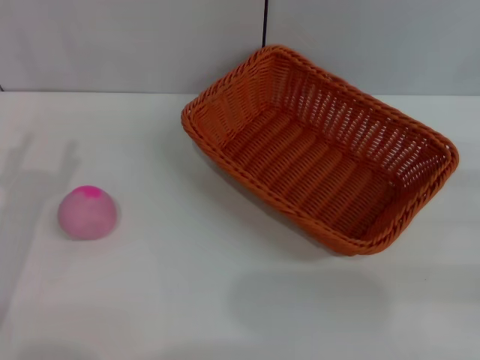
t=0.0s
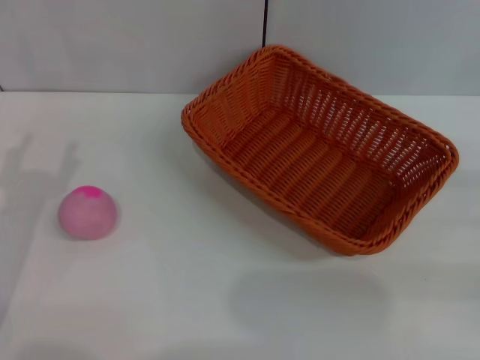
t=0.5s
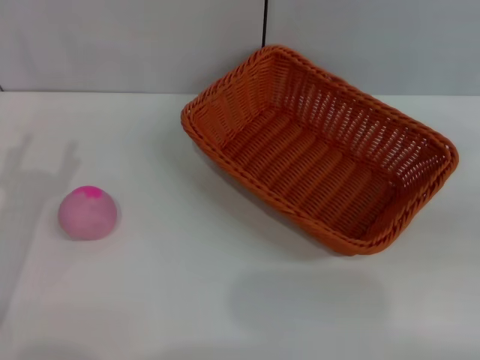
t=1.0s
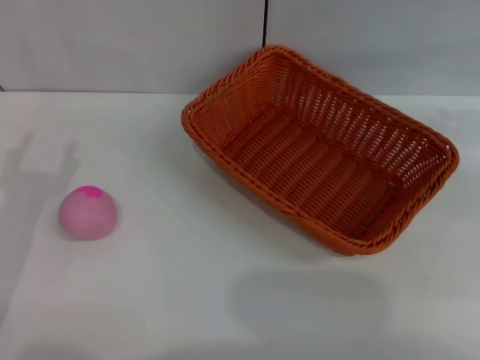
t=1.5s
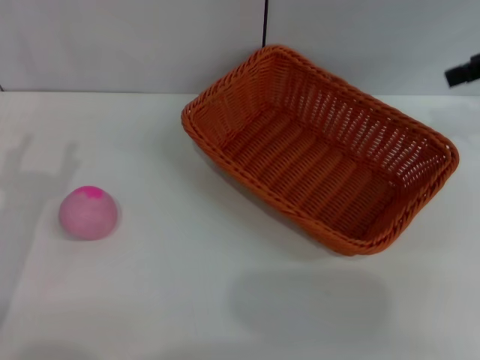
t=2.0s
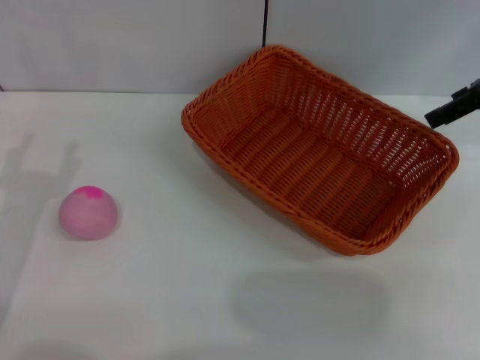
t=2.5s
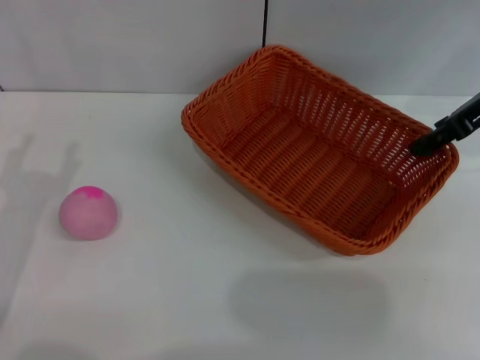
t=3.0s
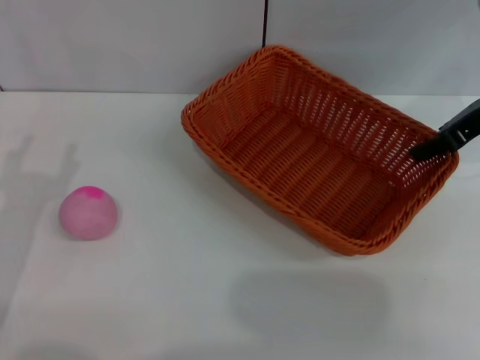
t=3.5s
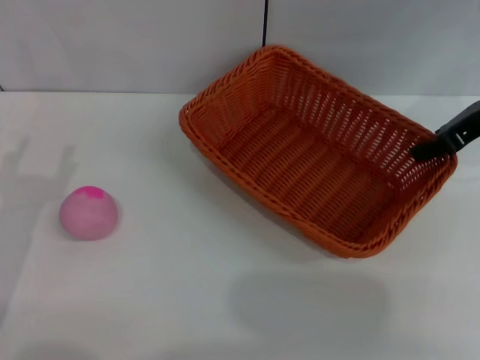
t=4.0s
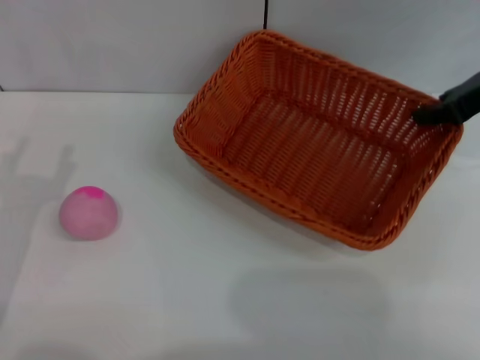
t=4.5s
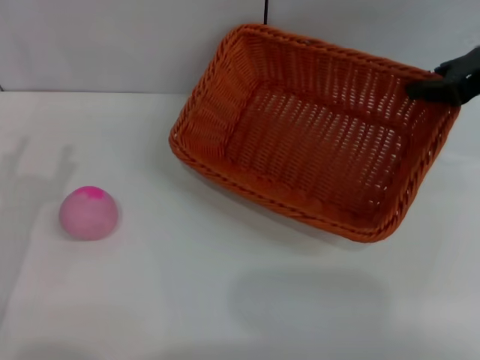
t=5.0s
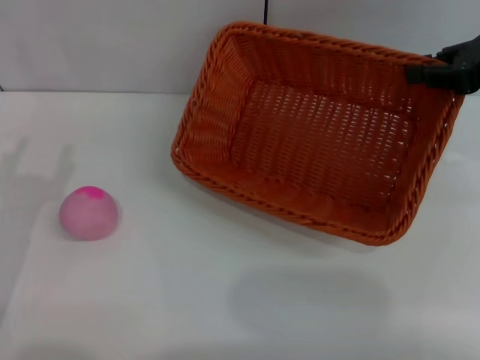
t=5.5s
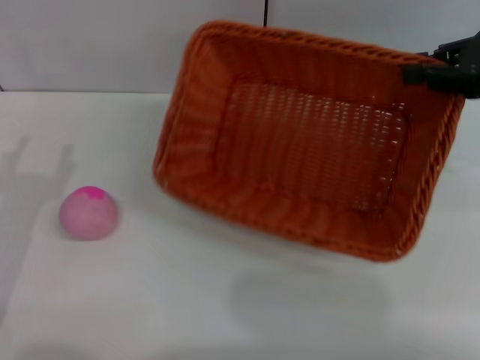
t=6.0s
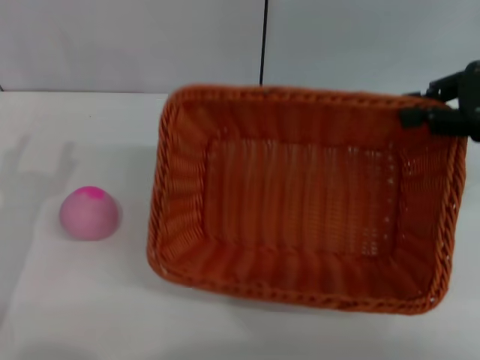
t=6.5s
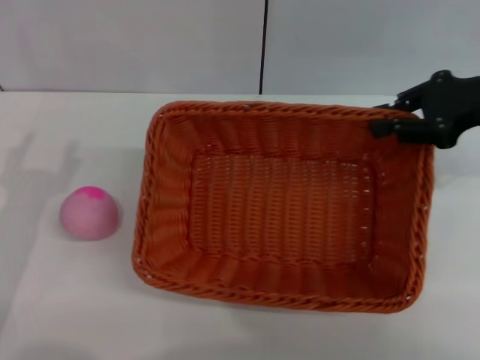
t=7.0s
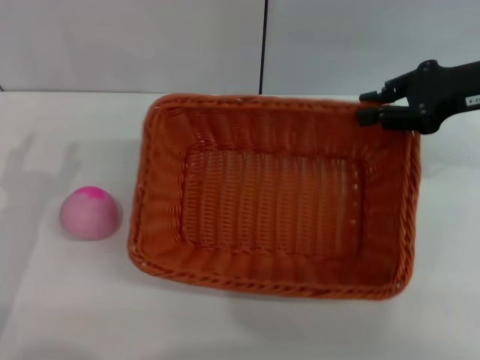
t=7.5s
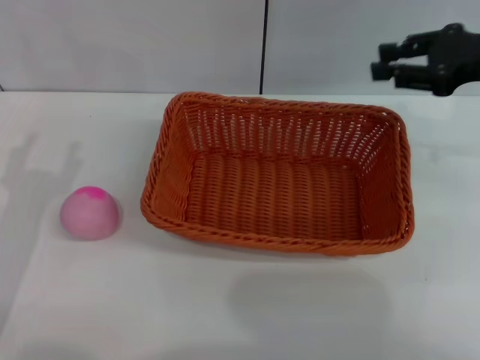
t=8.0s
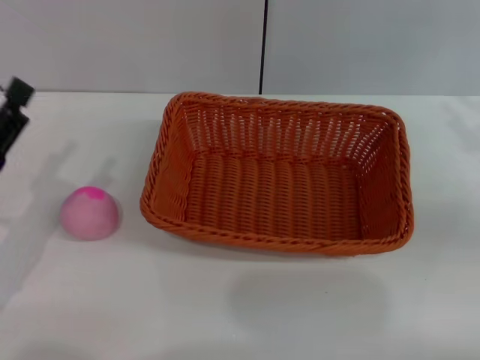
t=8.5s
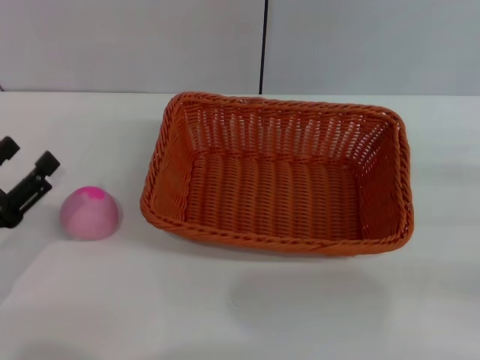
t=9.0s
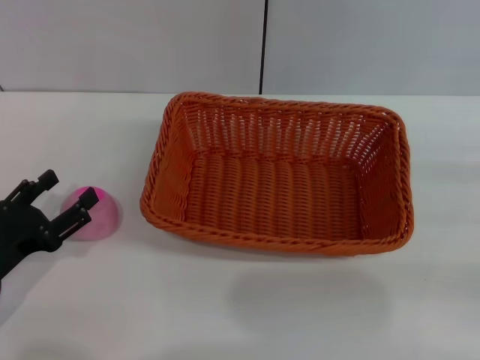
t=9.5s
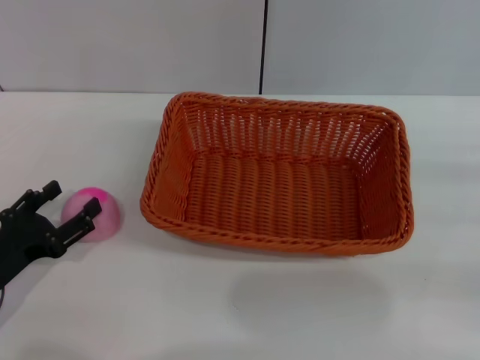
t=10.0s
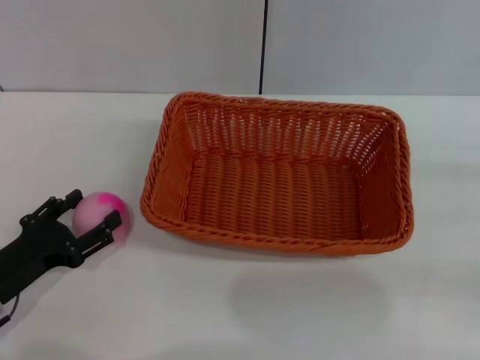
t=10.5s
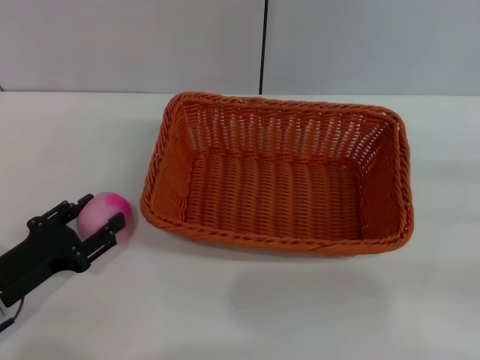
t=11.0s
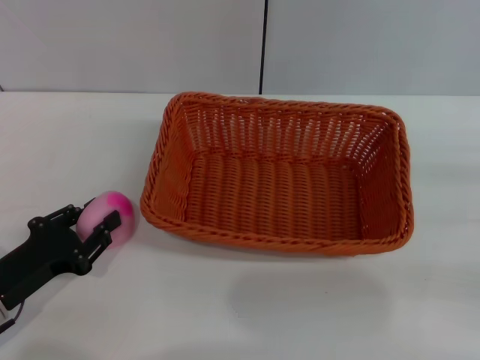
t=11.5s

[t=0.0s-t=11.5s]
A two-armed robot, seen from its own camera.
Step, t=0.0s to t=4.5s: Pick up the light basket with the right gripper.
Step, t=5.0s to t=8.0s: Place the light basket in the center of view with the right gripper.
t=2.0s to t=4.0s: The right gripper goes roughly 10 cm downward, and closes its fingers.
t=4.0s to t=6.0s: The right gripper moves approximately 5 cm.
t=6.0s to t=7.5s: The right gripper ends up approximately 5 cm from where it was.
t=7.5s to t=9.5s: The right gripper heads backward, to the right and downward, covering about 20 cm. Meanwhile the left gripper is displaced downward by approximately 5 cm.
t=9.5s to t=11.5s: The left gripper closes.

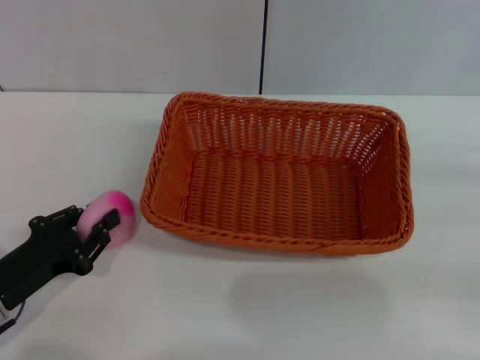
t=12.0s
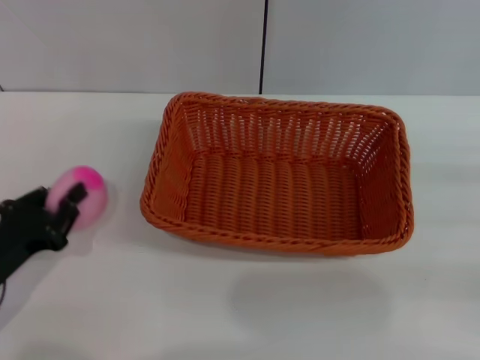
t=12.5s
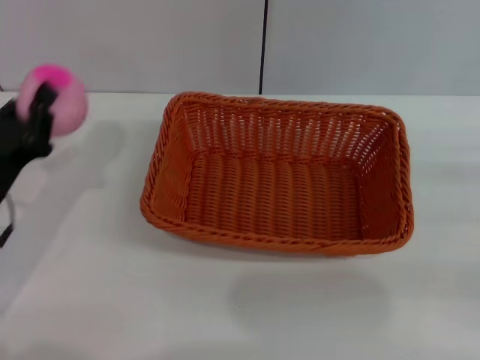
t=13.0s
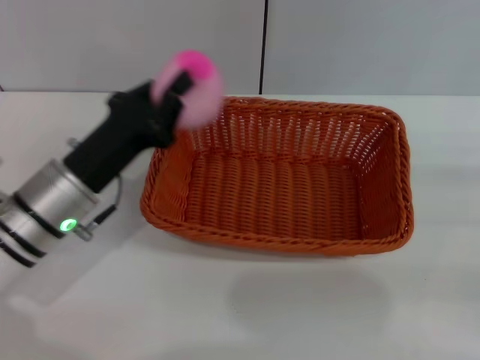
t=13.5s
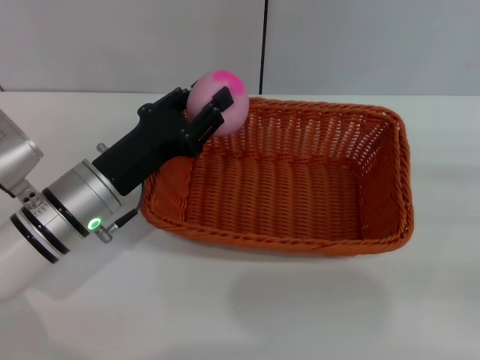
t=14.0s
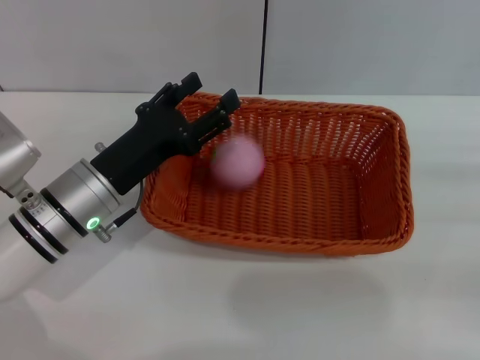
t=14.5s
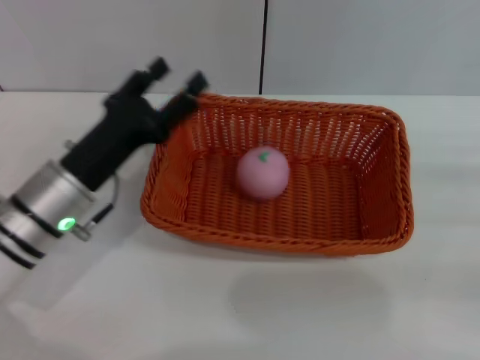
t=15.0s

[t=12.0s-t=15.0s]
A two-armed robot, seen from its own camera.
Step, t=13.5s to t=14.5s: Place the peach into the basket with the left gripper.
t=12.0s to t=13.5s: The left gripper heads to the right, forward and upward, covering some 15 cm.
t=13.5s to t=15.0s: The left gripper opens up.

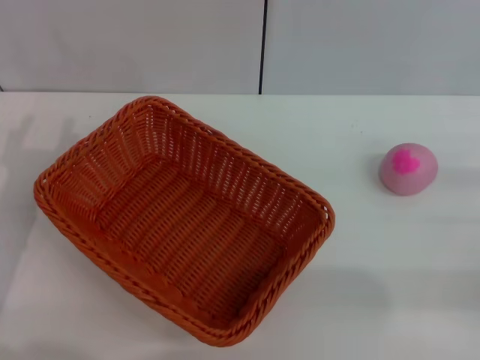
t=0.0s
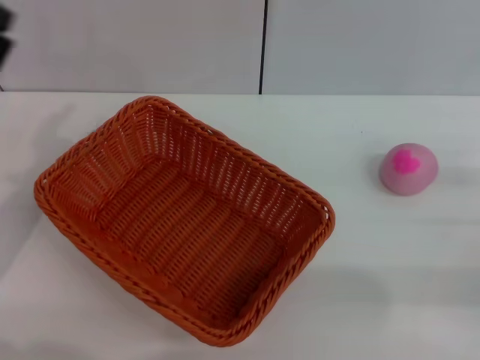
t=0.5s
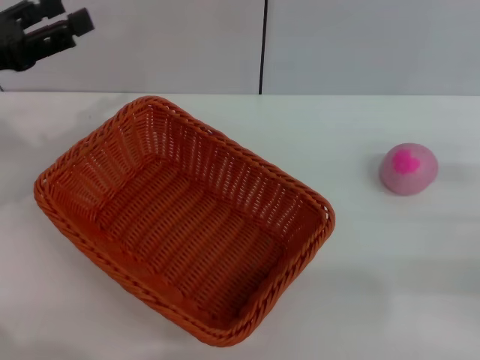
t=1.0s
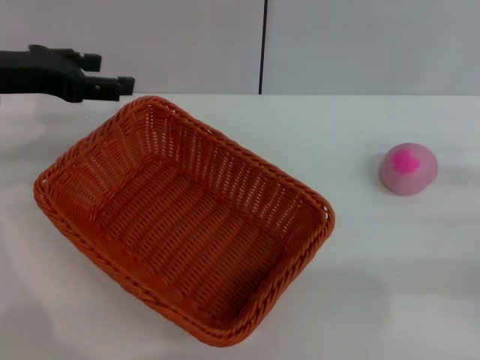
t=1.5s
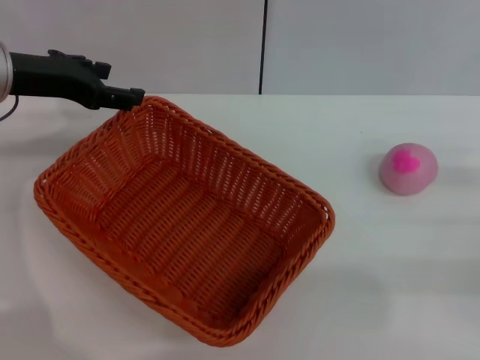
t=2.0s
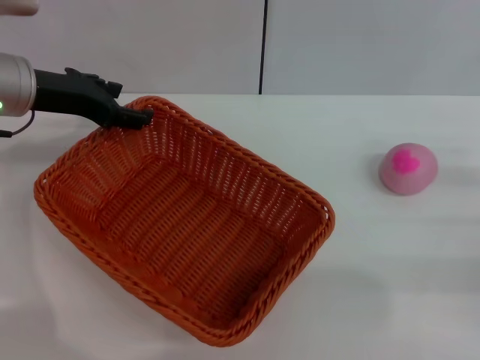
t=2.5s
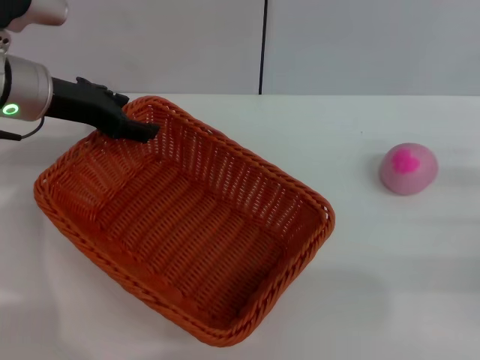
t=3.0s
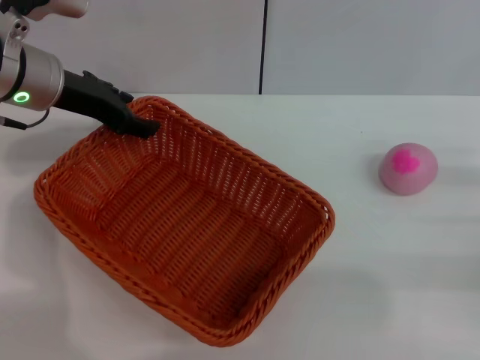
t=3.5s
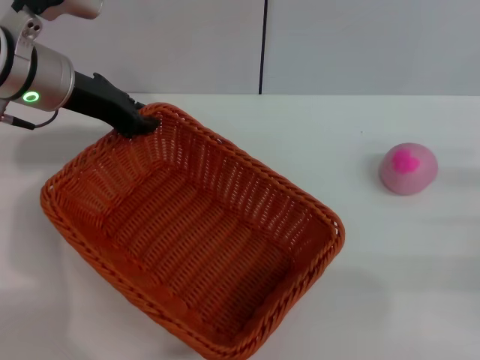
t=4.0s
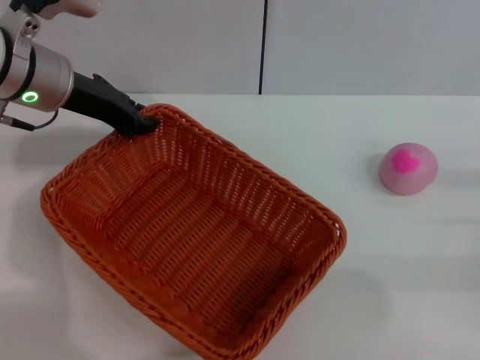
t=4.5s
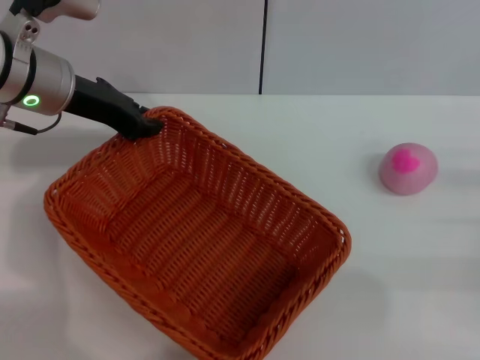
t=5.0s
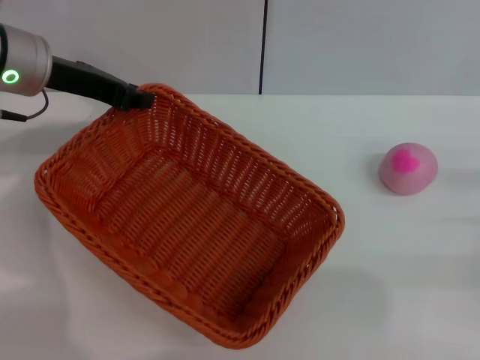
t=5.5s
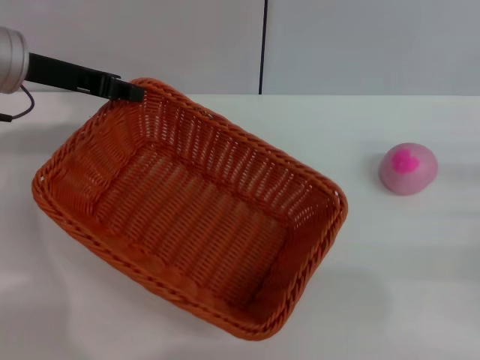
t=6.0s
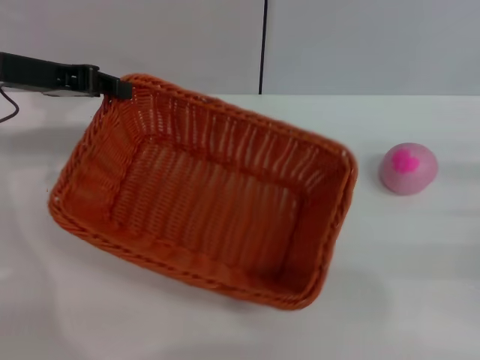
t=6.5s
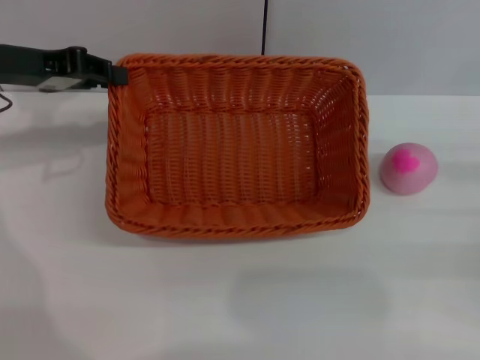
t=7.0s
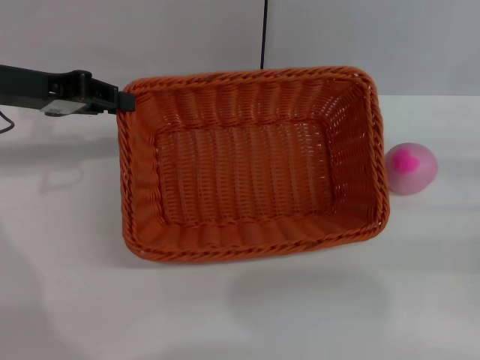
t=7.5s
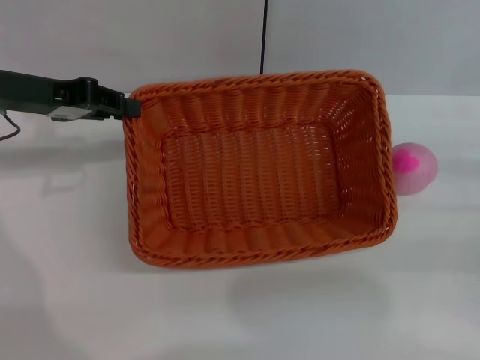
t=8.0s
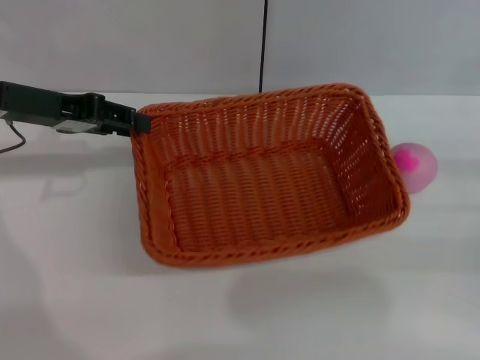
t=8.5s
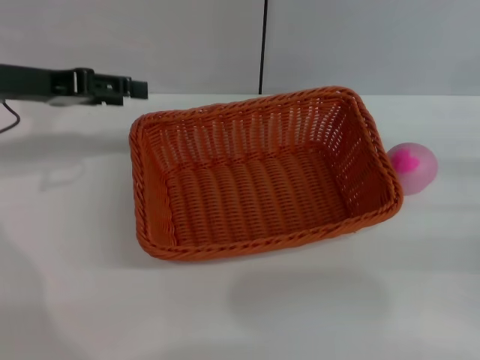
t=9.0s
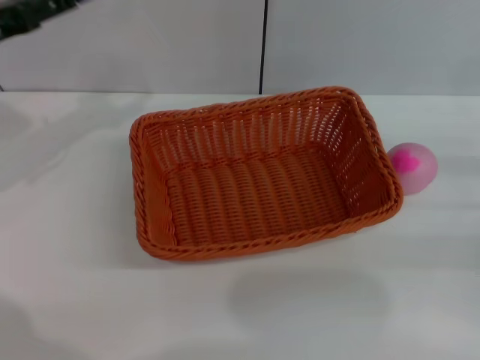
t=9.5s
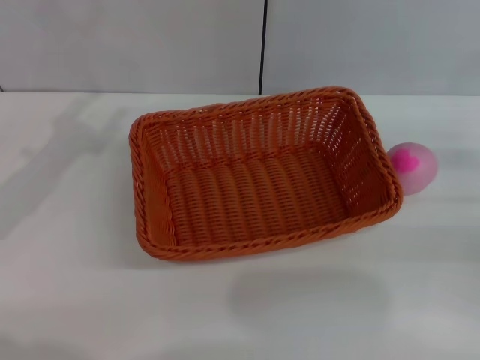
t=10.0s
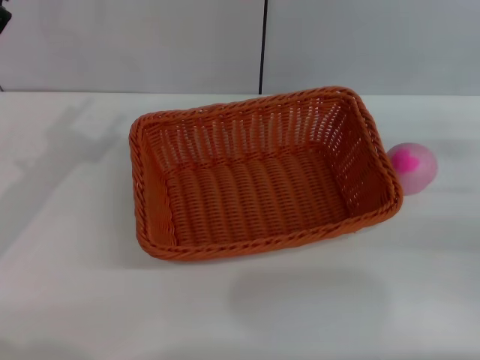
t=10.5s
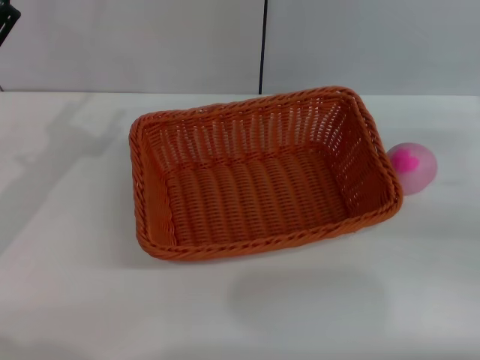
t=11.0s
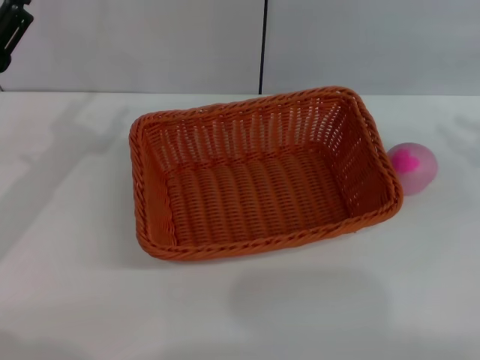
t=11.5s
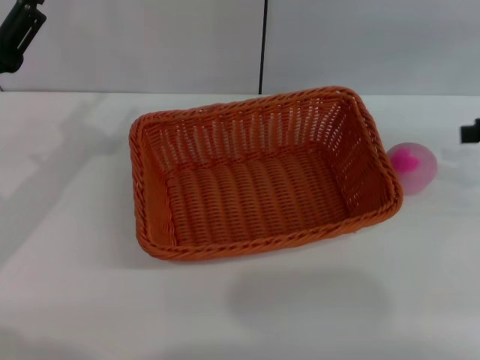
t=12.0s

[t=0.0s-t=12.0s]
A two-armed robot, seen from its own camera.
Step, t=0.0s to t=6.0s: Pick up the light basket with the left gripper.
Step, t=6.5s to t=9.0s: Place the light basket in the center of view with the right gripper.
t=0.0s to t=2.0s: The left gripper shifts about 15 cm forward and upward.
t=2.0s to t=4.0s: The left gripper travels to the right by some 5 cm, and closes.
t=4.0s to t=6.0s: The left gripper closes its fingers.
t=8.0s to t=10.0s: The left gripper moves backward, about 10 cm, and opens up.
t=10.0s to t=12.0s: The right gripper travels upward and forward by about 15 cm.
